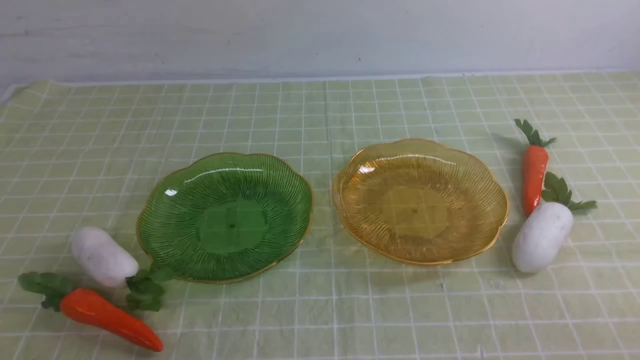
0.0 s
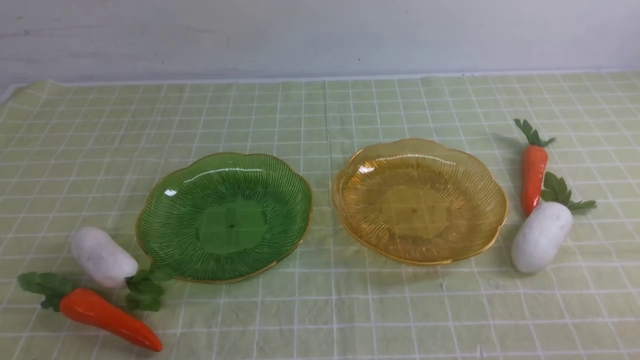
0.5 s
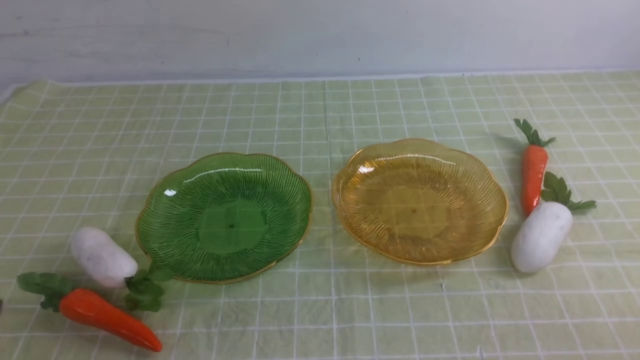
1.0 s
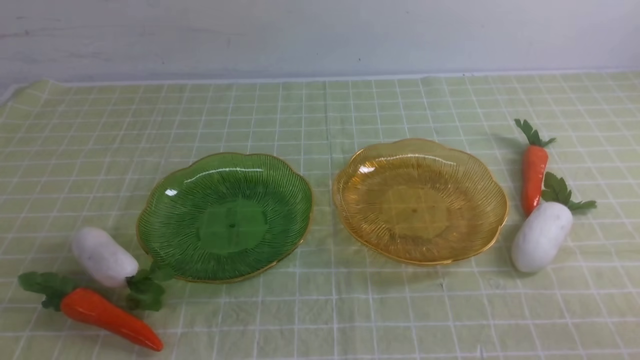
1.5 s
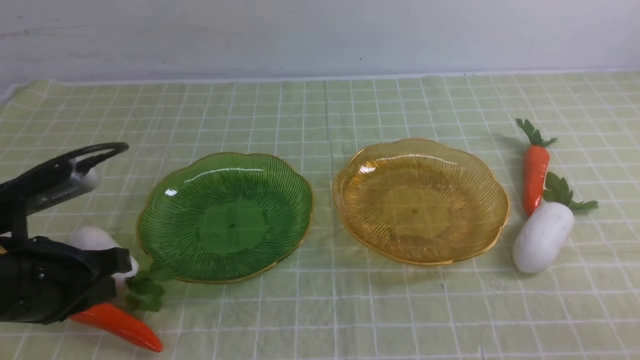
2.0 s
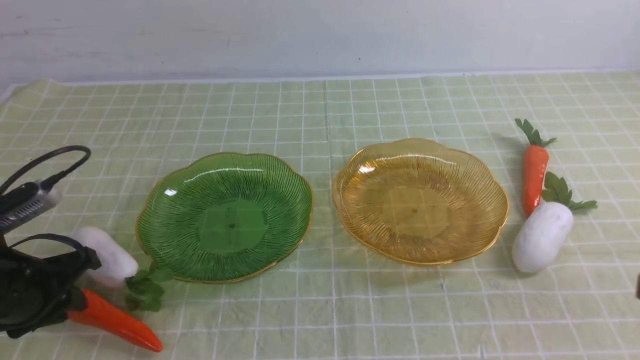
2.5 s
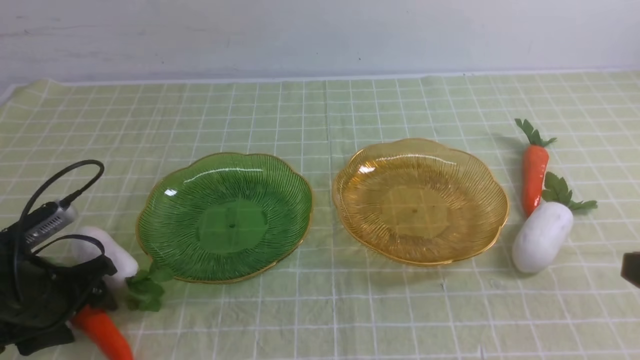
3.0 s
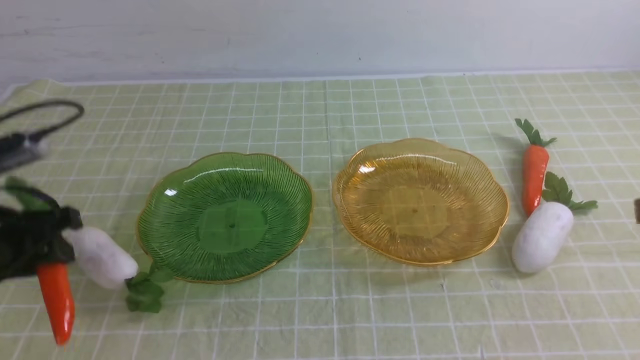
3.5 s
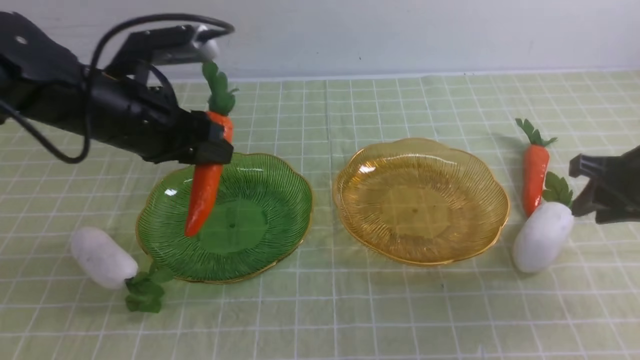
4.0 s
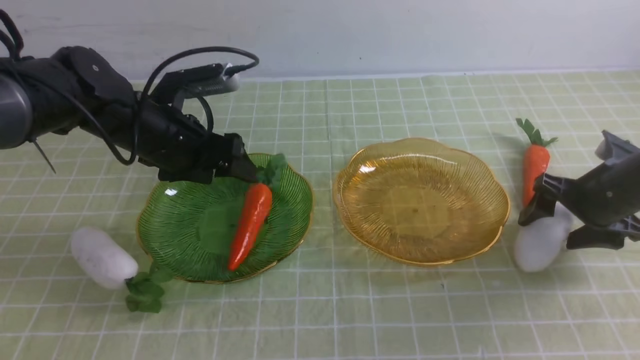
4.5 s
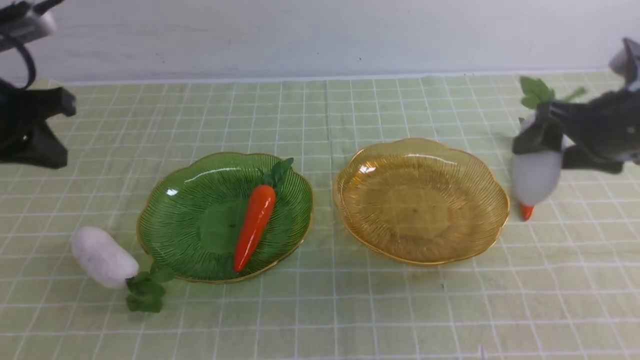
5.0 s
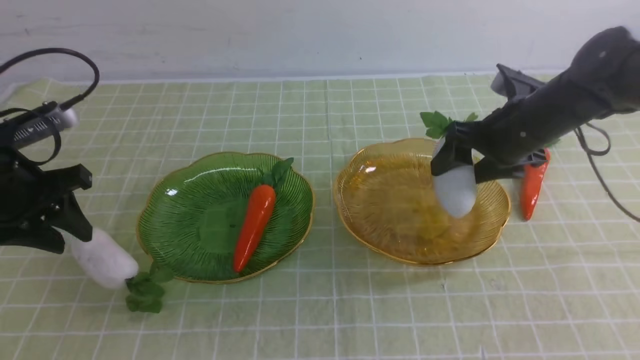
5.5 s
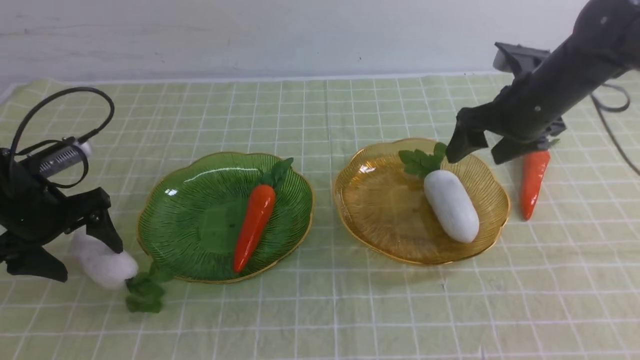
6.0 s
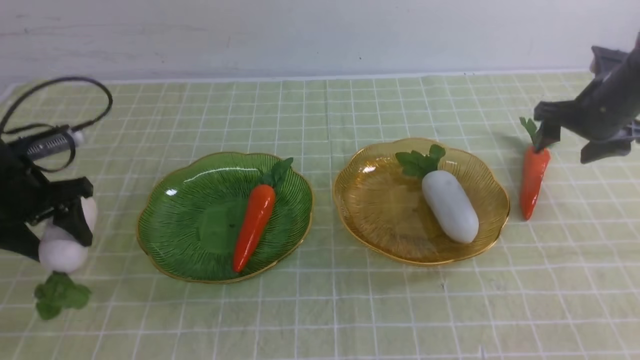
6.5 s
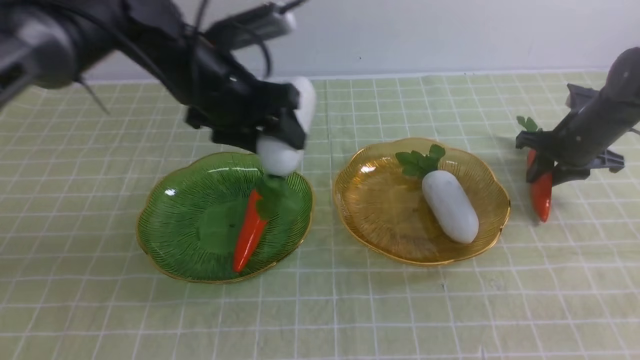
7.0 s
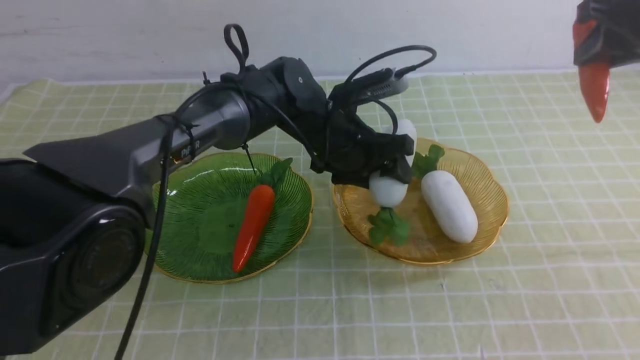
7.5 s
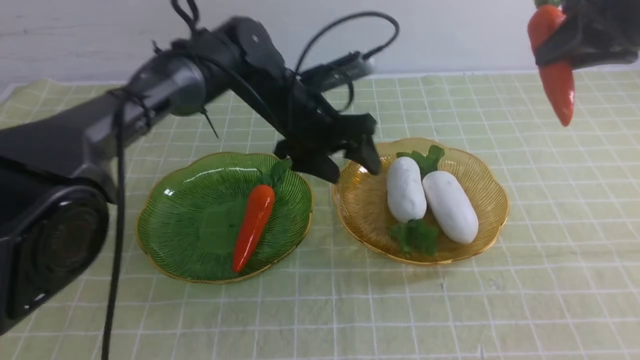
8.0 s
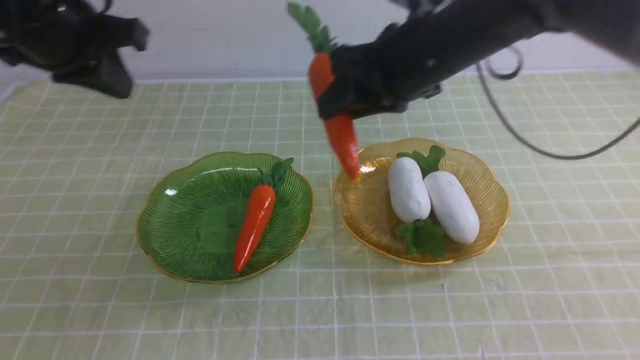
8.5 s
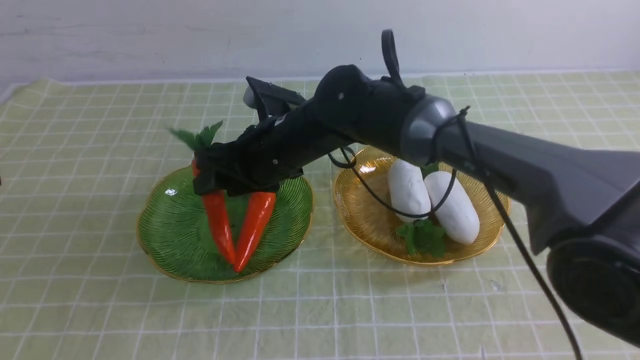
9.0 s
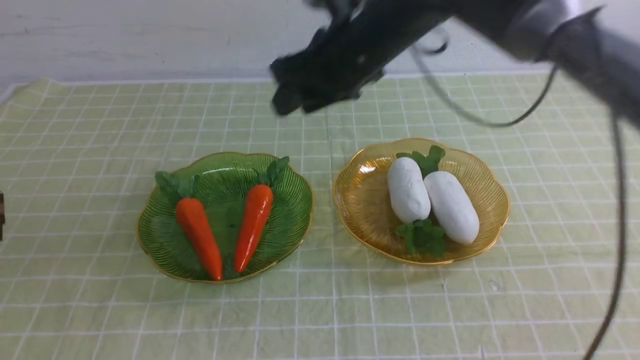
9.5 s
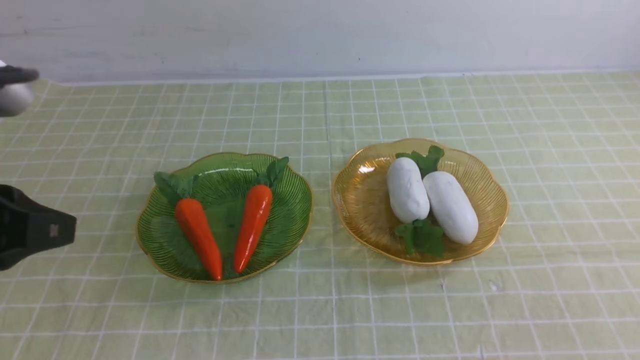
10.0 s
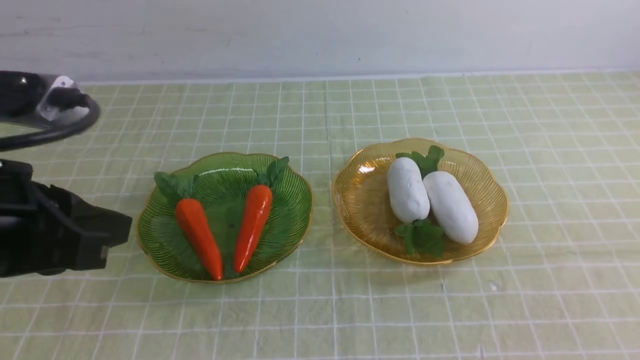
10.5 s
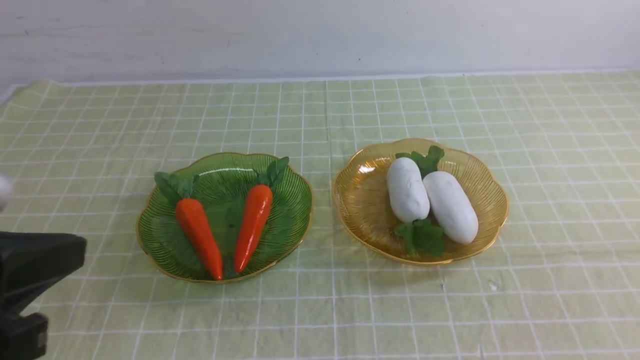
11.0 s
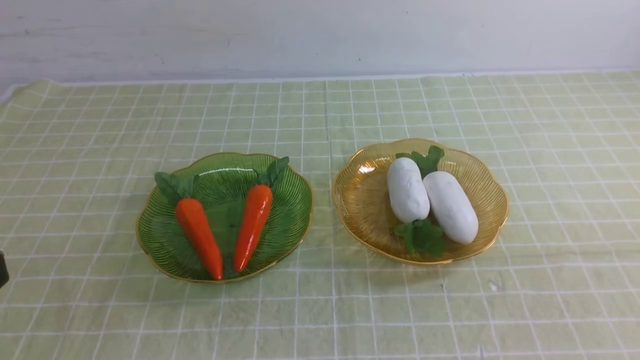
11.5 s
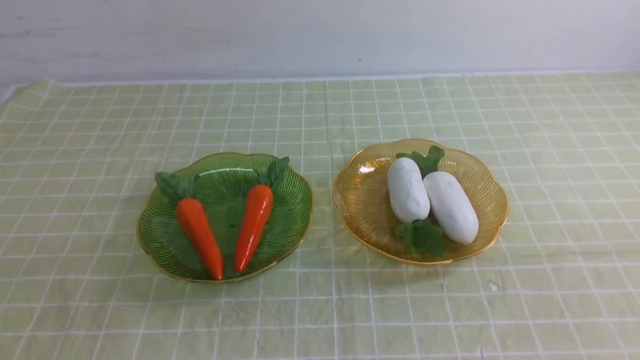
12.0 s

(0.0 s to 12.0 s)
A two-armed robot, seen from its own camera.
Step, 0.0 s - 5.0 s: use the left arm to grab a carrot and put it into the left plate.
Step, 5.5 s - 6.5 s: use the right arm to grab a radish and put it into the right plate.
Step, 7.5 s - 8.0 s: use the left arm to grab a radish and put it into the right plate.
Step, 8.5 s - 9.5 s: use the right arm to grab a carrot and put it into the left plate.
0.0 s - 2.0 s: The left gripper is displaced forward and upward by approximately 15 cm.
2.0 s - 4.0 s: The right gripper goes some 25 cm forward, and opens up, while the left gripper moves forward, approximately 15 cm, and opens its fingers.
4.0 s - 6.0 s: The right gripper shifts some 15 cm forward and to the left, and opens up; the left gripper shifts some 15 cm to the left and downward, and opens its fingers.
6.0 s - 8.0 s: The left gripper travels to the right by some 25 cm, and closes. The right gripper shifts roughly 15 cm upward, and closes.
8.0 s - 10.0 s: The left gripper shifts some 35 cm backward and to the left, and closes up; the right gripper is displaced backward and upward by about 20 cm, travels to the left and back again, some 30 cm each way, and closes up.
10.0 s - 12.0 s: The left gripper heads backward, covering about 10 cm.

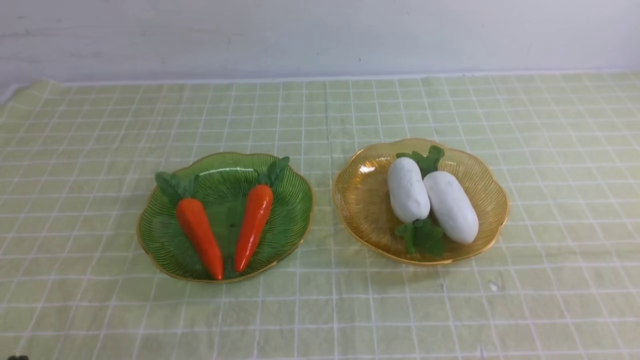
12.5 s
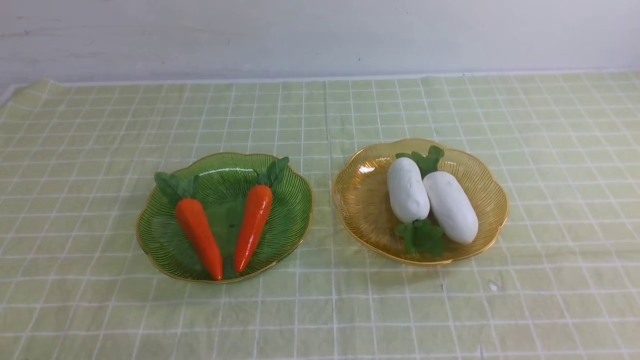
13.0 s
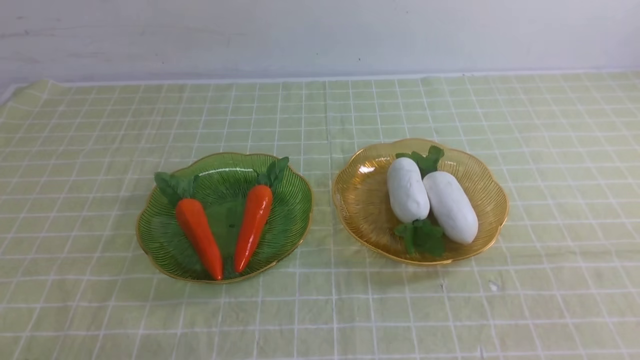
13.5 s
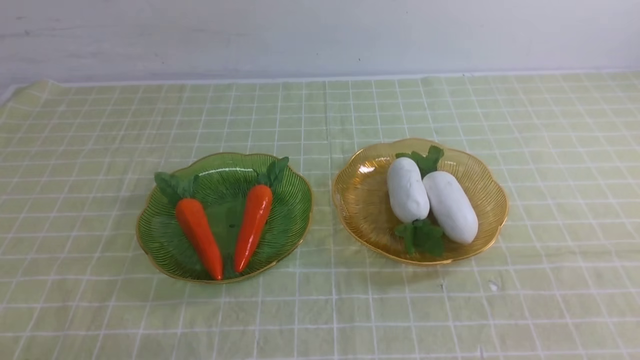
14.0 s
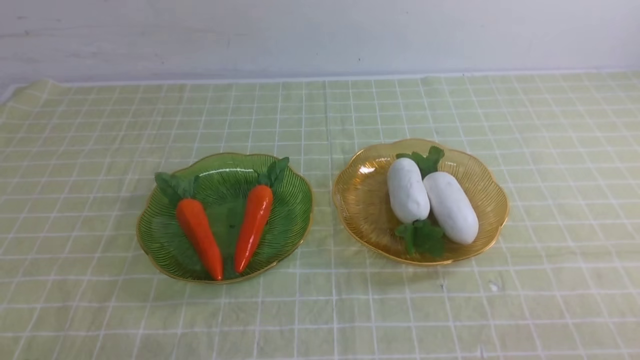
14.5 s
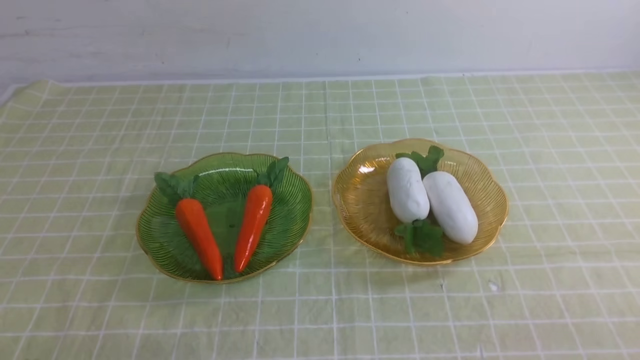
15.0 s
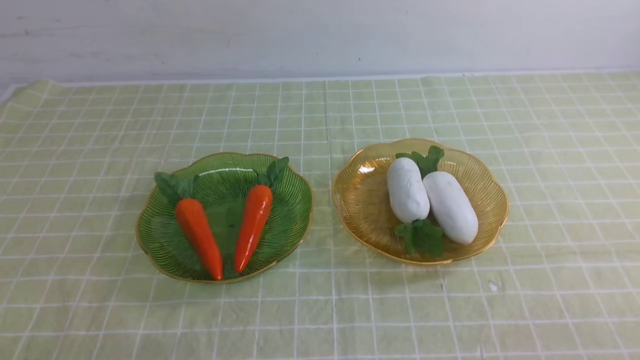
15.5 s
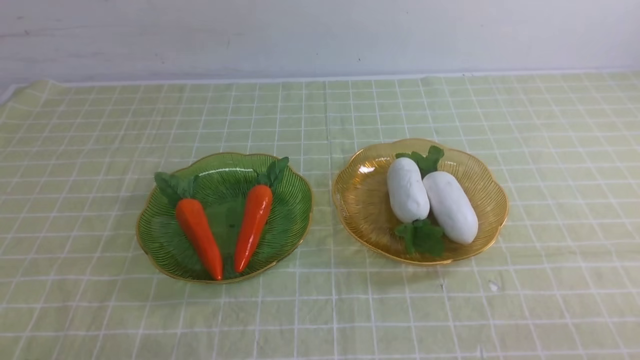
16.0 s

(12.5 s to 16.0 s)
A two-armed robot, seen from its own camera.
14.5 s - 16.0 s: The two grippers keep their place.
